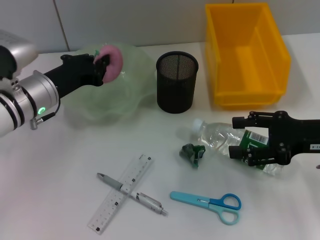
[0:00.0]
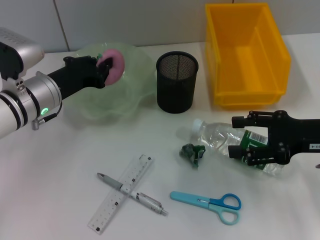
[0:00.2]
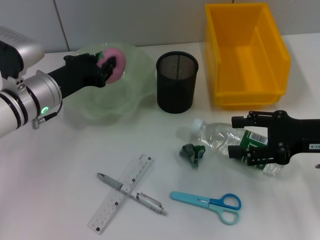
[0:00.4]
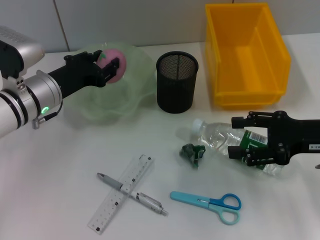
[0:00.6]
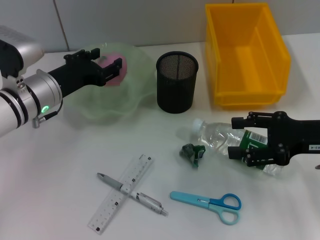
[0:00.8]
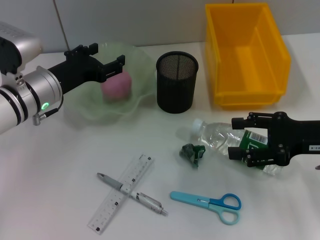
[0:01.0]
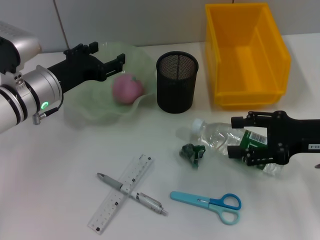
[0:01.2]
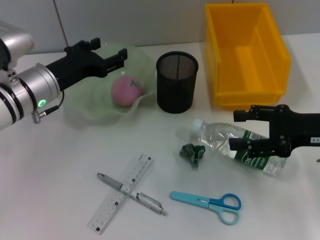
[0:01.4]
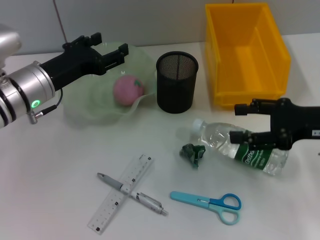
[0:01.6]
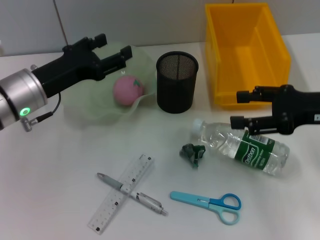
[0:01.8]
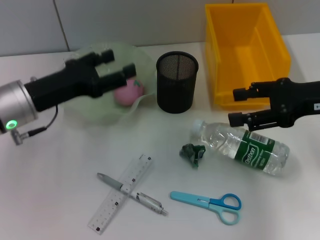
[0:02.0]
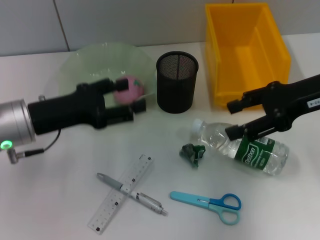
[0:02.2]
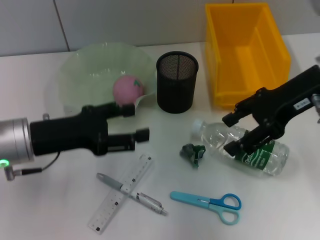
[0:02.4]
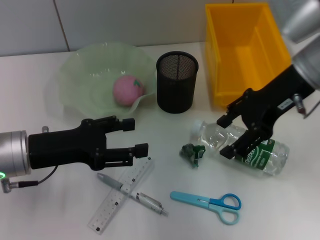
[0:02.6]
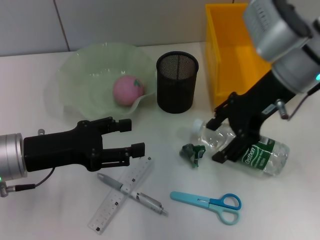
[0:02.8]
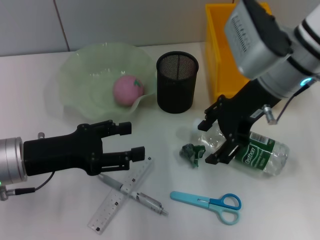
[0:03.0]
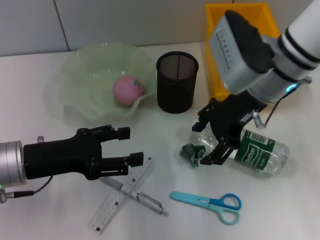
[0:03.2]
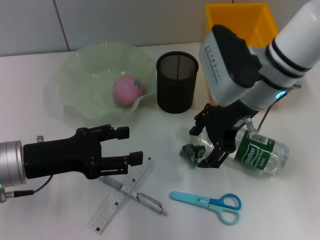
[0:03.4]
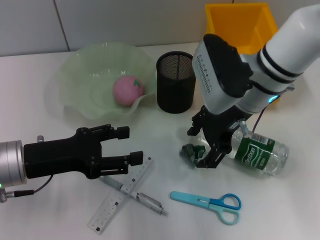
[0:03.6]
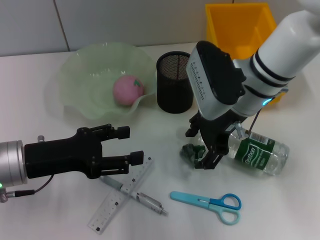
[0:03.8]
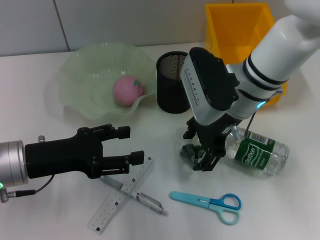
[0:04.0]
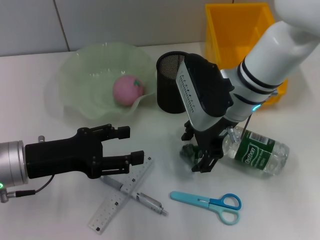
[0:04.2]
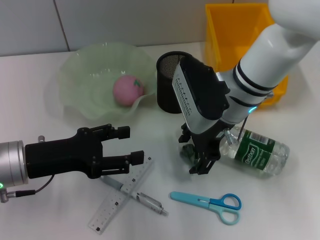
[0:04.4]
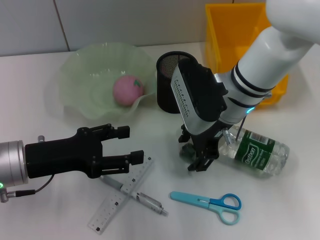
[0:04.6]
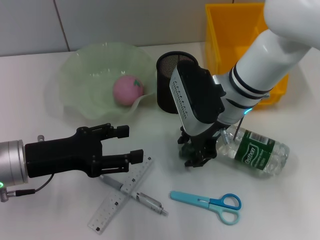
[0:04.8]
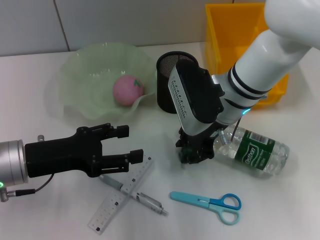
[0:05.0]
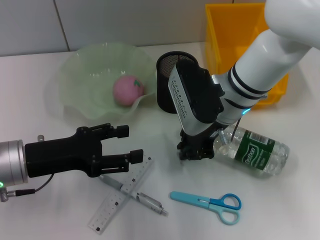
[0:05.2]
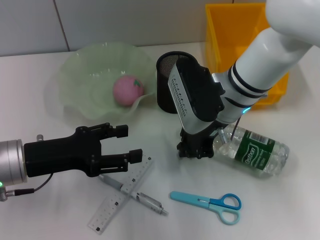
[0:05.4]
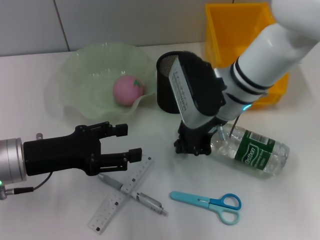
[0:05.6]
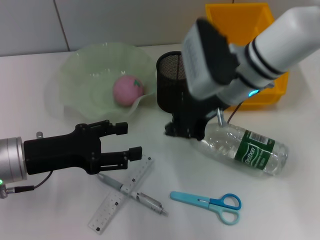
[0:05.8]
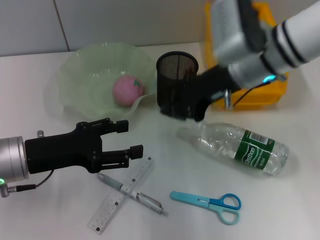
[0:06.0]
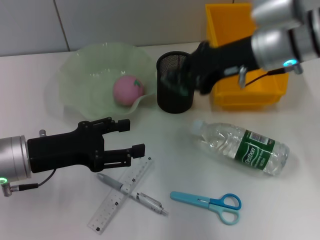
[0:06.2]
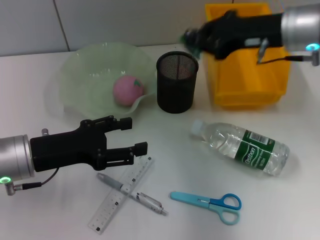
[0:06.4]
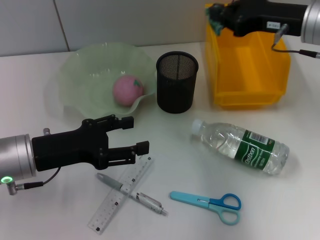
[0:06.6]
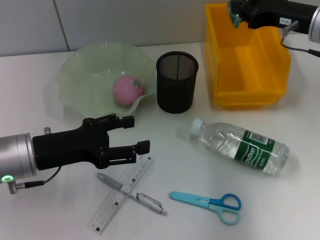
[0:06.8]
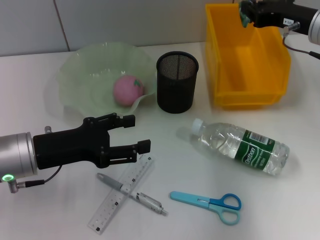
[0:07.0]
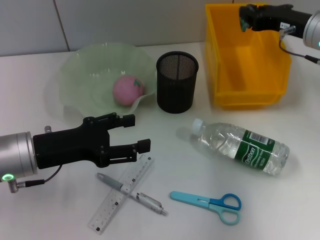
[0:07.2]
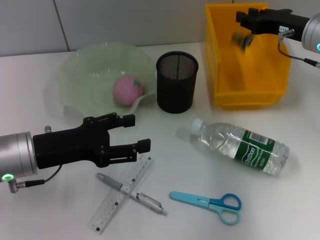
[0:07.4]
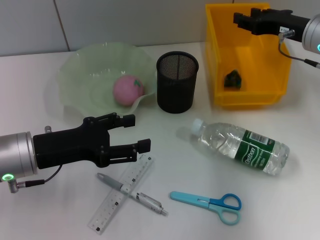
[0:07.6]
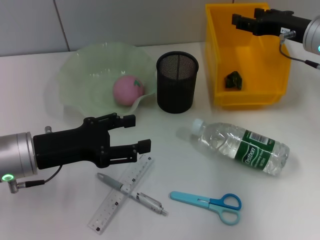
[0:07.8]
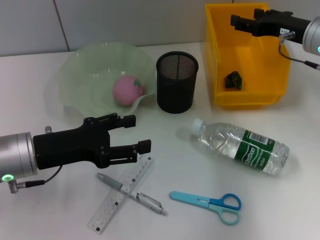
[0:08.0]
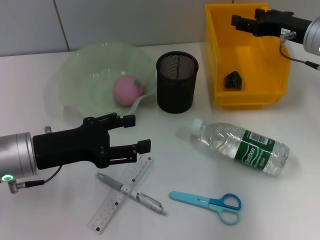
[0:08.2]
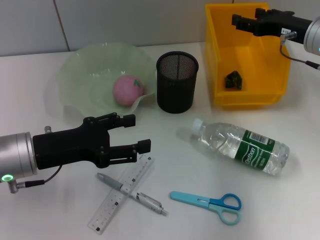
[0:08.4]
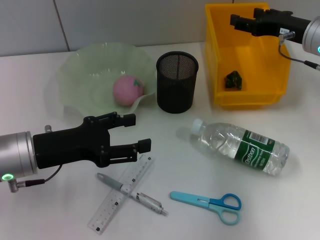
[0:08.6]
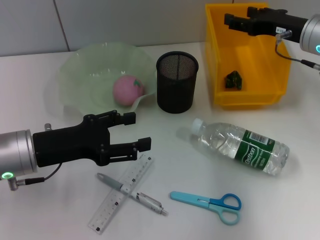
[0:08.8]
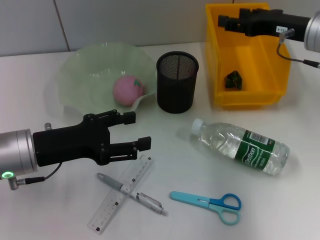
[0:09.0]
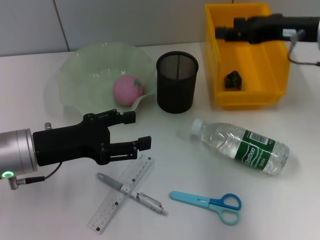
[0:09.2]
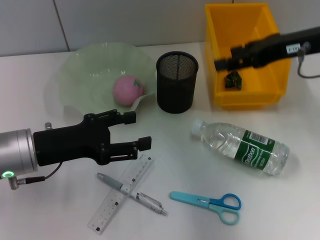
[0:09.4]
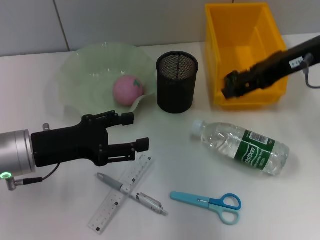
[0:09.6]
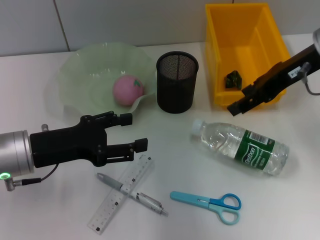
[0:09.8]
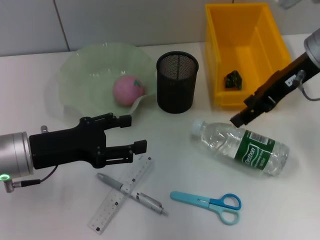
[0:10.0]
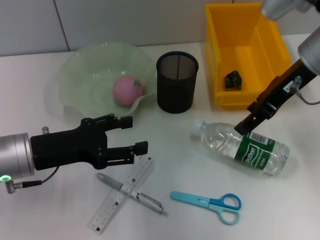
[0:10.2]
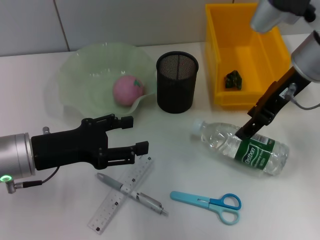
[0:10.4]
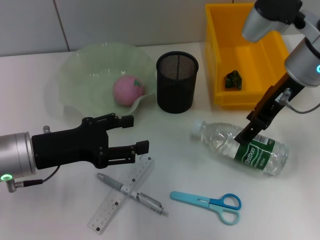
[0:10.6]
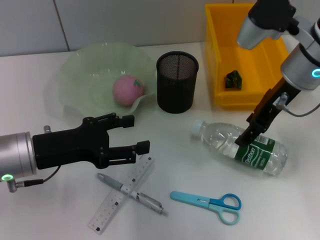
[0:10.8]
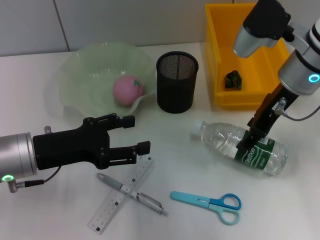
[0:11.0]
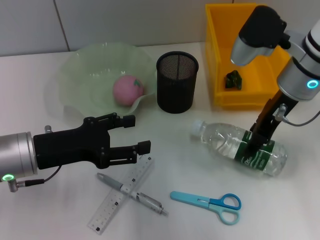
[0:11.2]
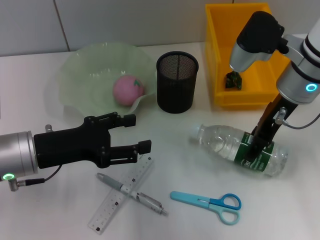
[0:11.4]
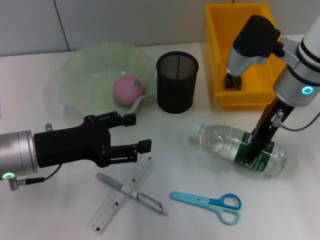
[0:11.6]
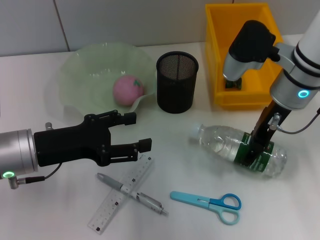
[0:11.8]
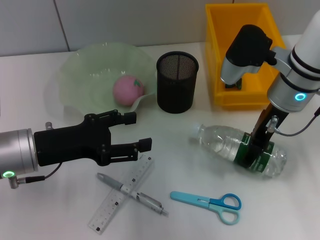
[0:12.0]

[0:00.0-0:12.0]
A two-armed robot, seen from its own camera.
Step, 0:01.6 to 0:05.2: Grab the plastic with the right hand.
Step, 0:05.6 to 0:07.6: Place the plastic into the trash can with the right hand.
0:00.0 to 0:01.6: The left gripper opens its fingers.
0:01.6 to 0:03.0: The right gripper is displaced to the left, forward and upward by about 15 cm, while the left gripper goes some 10 cm backward.
0:03.0 to 0:04.4: The right gripper shifts about 10 cm downward and to the left.
0:04.4 to 0:06.0: The right gripper moves approximately 5 cm, and closes.
0:06.0 to 0:07.6: The right gripper heads to the right, covering roughly 15 cm, and opens its fingers.
0:07.6 to 0:09.0: The right gripper opens.
0:09.0 to 0:10.4: The right gripper moves to the left, some 5 cm.
0:10.4 to 0:12.0: The right gripper travels downward by some 5 cm.

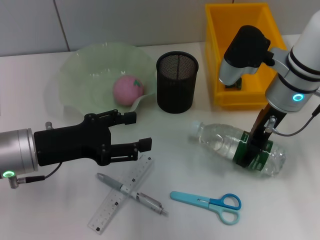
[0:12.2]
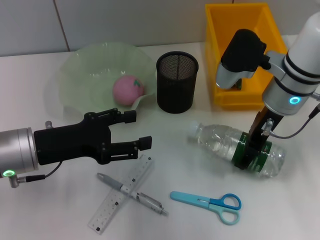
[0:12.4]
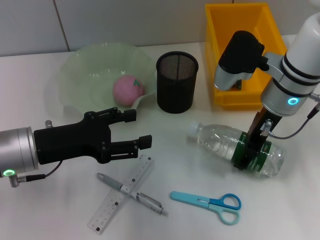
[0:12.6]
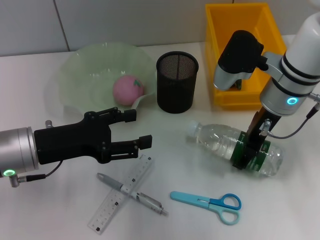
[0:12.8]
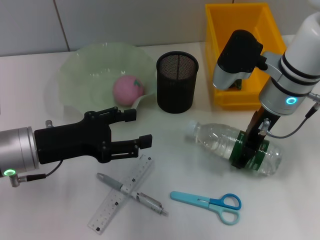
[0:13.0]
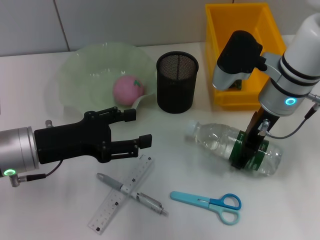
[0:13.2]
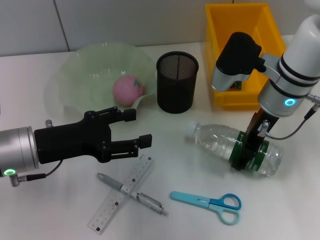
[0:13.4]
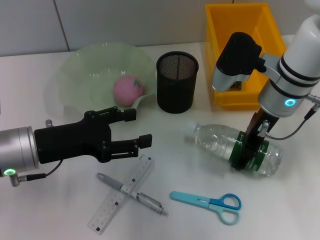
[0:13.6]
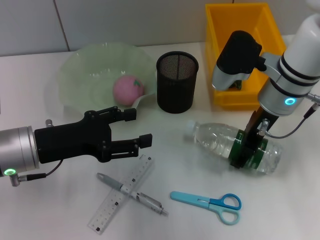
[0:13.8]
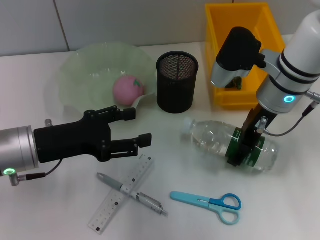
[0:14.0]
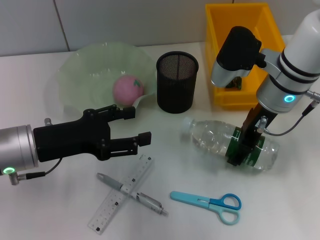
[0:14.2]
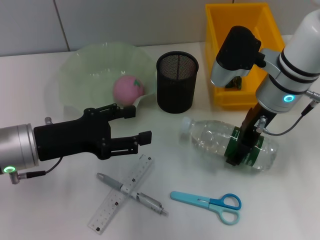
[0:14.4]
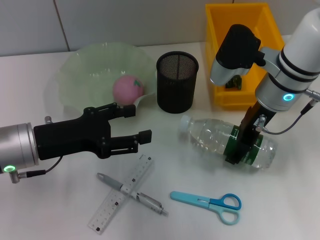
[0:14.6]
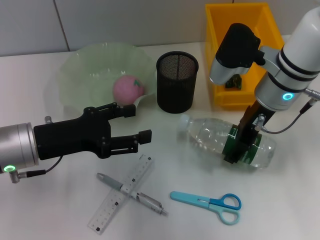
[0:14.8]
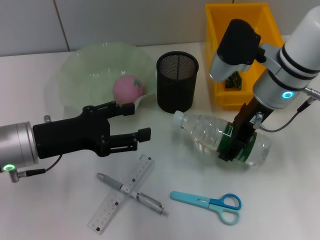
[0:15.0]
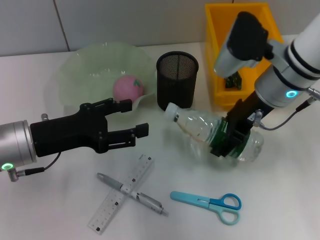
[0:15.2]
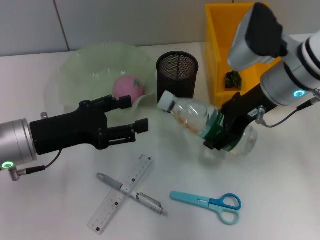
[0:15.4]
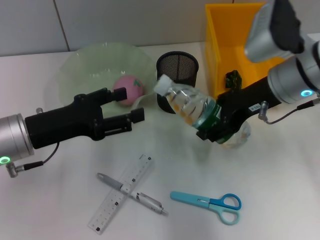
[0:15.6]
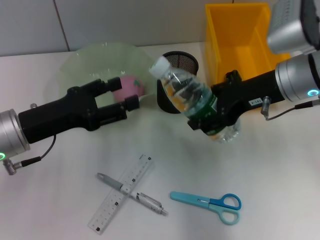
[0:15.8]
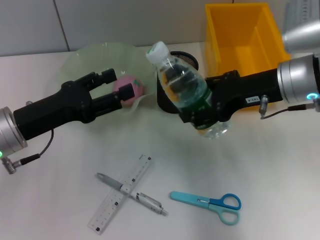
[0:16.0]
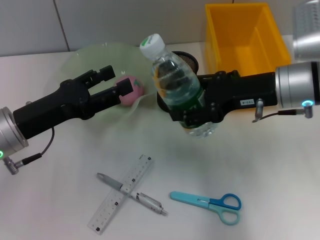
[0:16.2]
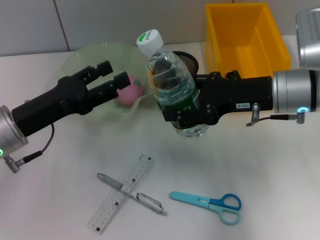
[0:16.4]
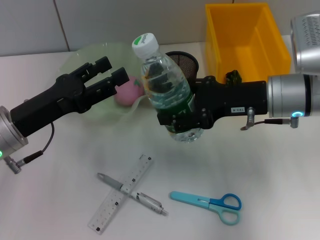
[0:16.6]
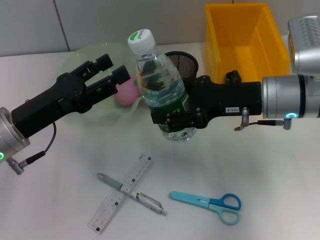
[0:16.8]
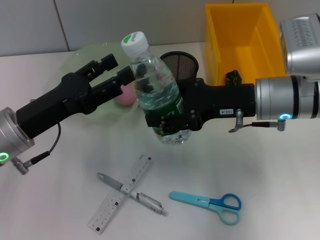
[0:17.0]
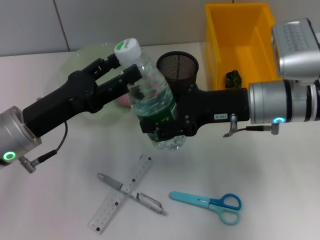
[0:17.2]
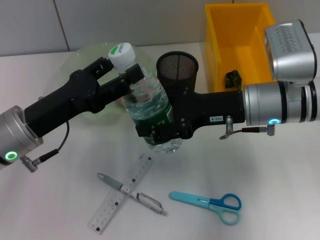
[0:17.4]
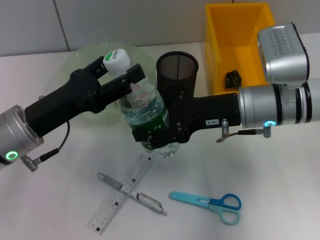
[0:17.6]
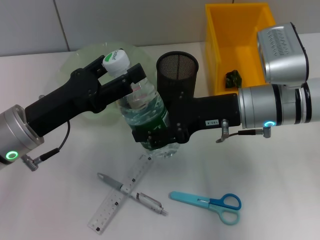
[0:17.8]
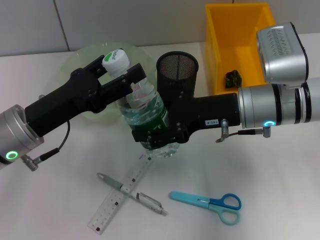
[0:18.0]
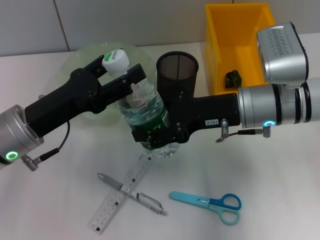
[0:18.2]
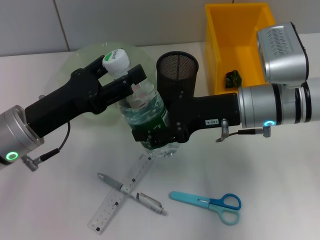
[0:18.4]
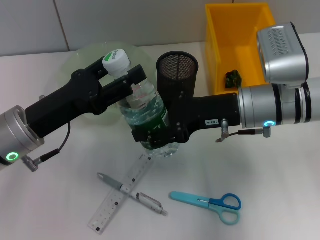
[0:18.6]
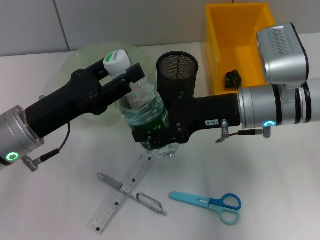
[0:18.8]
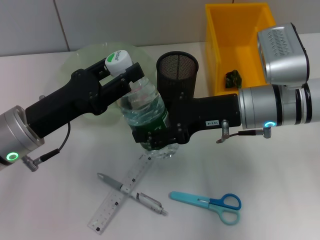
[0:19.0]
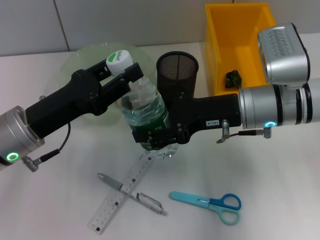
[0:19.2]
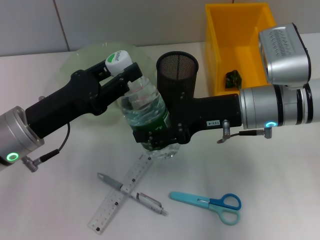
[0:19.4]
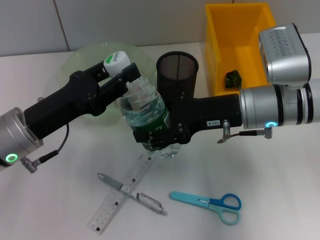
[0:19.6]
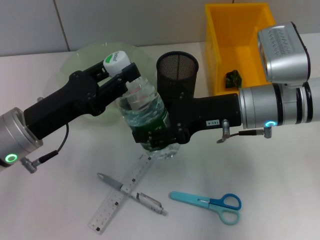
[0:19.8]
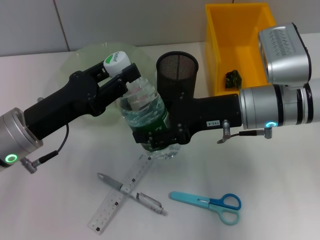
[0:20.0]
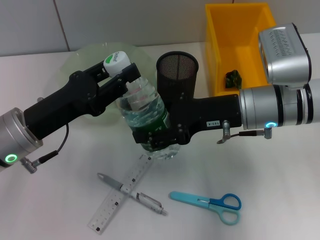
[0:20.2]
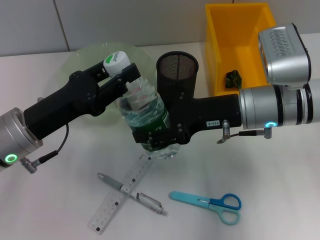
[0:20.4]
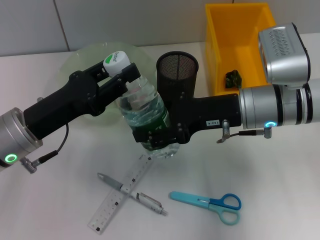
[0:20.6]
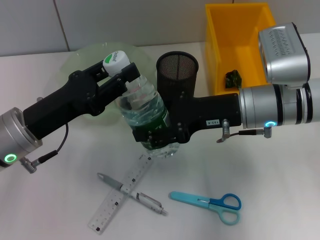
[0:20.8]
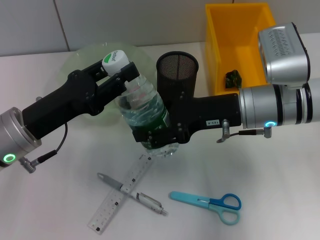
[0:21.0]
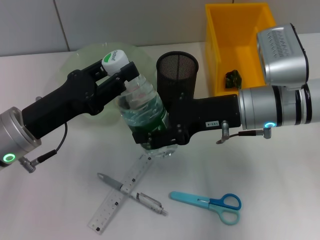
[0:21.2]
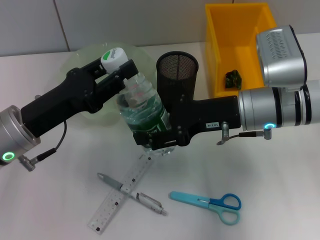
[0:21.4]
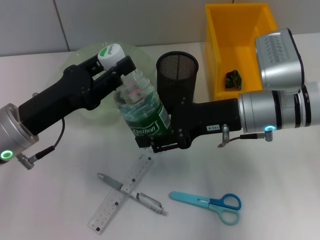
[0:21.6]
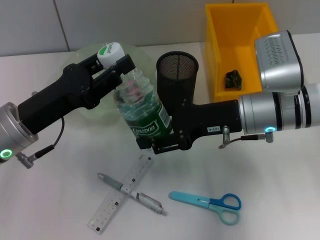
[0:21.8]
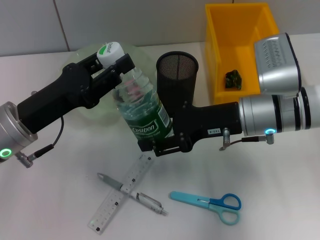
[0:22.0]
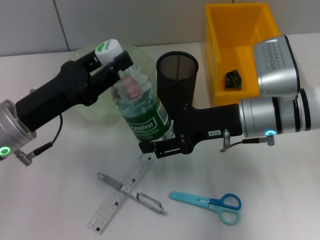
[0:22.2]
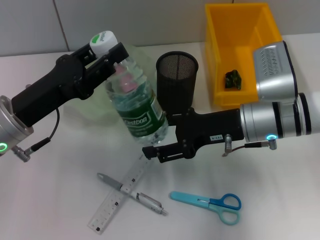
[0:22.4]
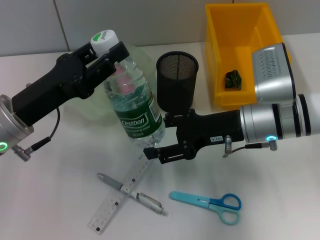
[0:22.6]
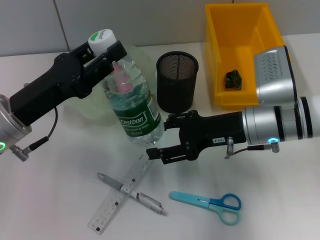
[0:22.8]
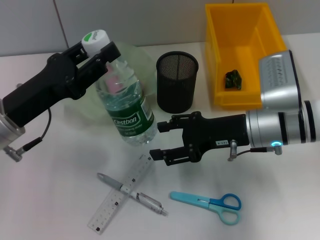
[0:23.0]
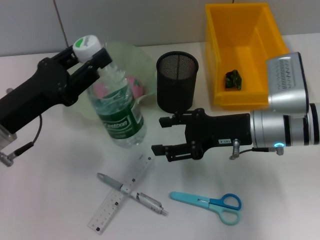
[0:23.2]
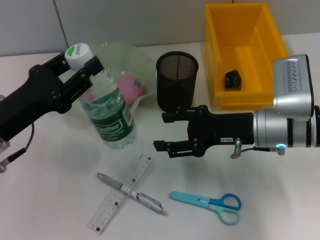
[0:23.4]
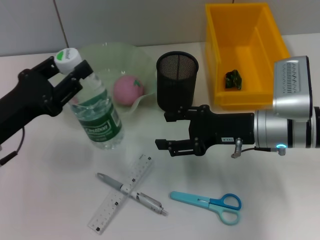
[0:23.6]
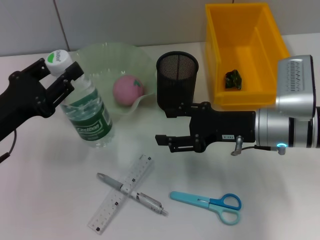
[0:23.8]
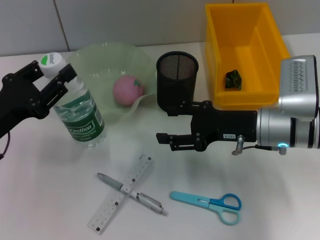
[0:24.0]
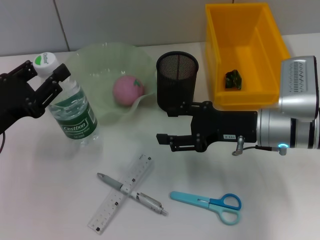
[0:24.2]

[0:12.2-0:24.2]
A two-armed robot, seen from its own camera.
Step, 0:14.0 to 0:22.8: Pass the water bottle from the right hand to the left hand.
0:12.2 to 0:13.8: The two grippers keep their place.
0:13.8 to 0:15.2: The grippers move only a little.
0:15.2 to 0:16.6: The right gripper changes place by some 5 cm.
0:16.6 to 0:18.2: The grippers stay close to where they were, moving slightly.
0:18.2 to 0:19.8: The left gripper closes its fingers.
0:19.8 to 0:21.2: The two grippers keep their place.
0:22.6 to 0:24.2: The left gripper is displaced to the left by about 5 cm.
